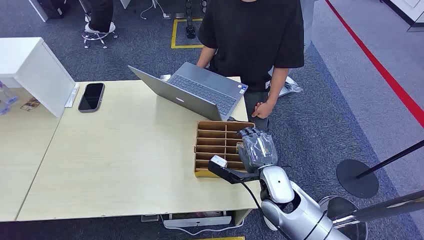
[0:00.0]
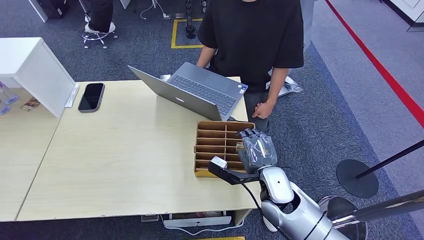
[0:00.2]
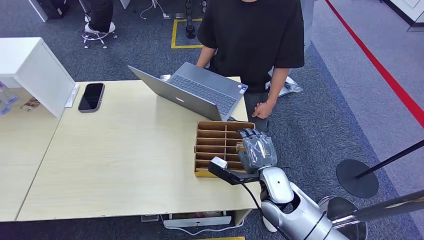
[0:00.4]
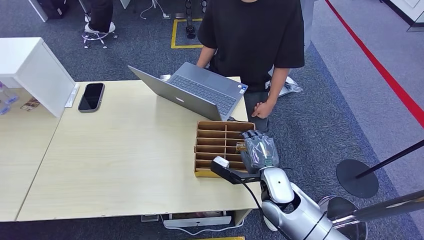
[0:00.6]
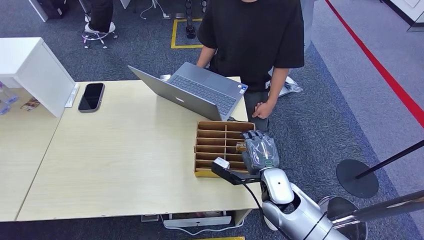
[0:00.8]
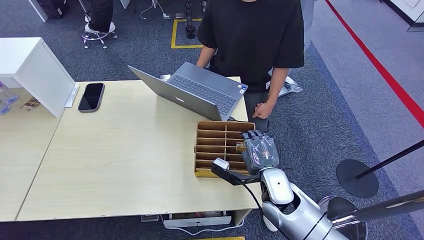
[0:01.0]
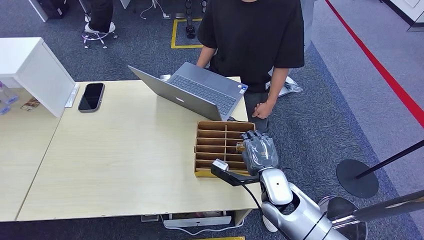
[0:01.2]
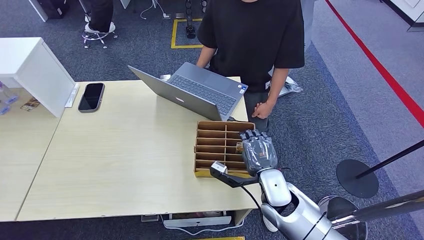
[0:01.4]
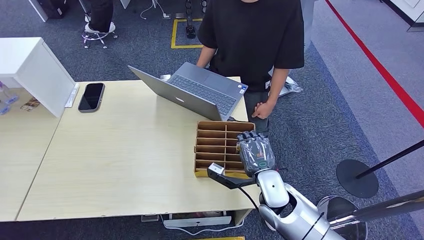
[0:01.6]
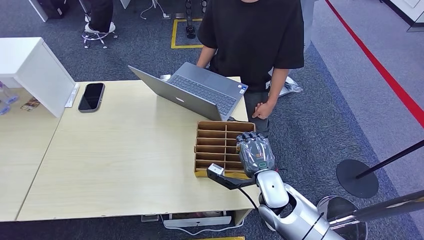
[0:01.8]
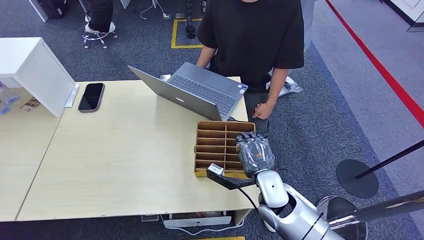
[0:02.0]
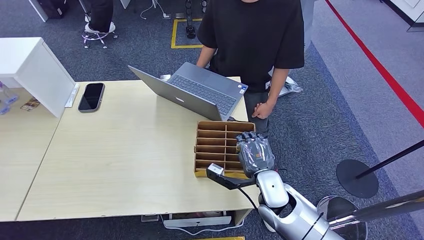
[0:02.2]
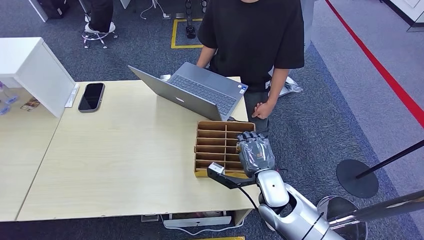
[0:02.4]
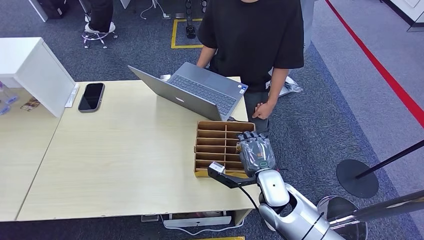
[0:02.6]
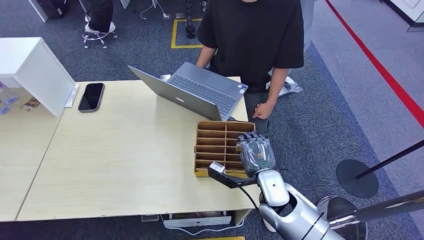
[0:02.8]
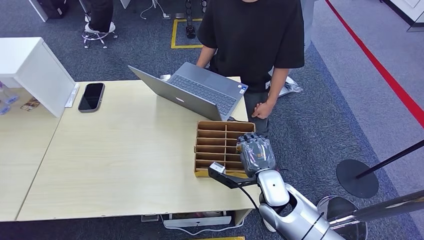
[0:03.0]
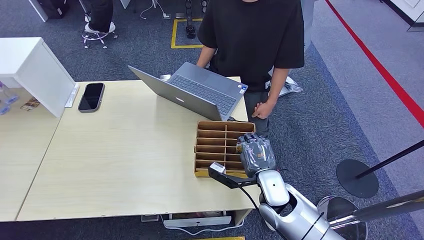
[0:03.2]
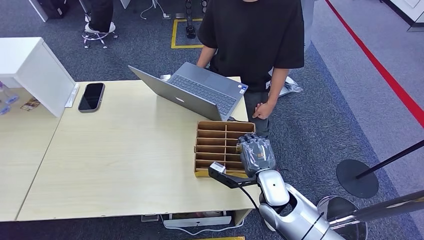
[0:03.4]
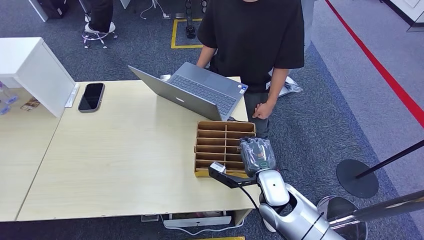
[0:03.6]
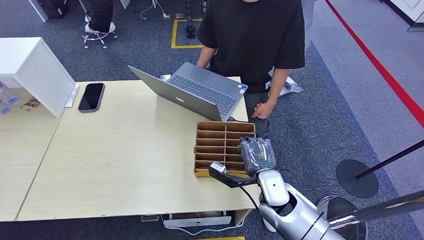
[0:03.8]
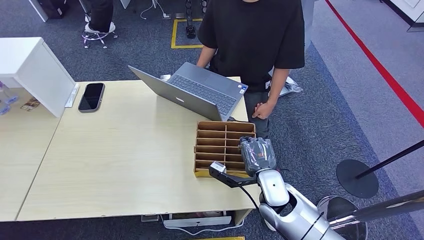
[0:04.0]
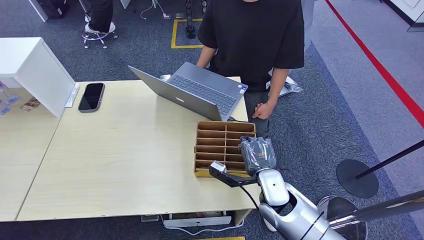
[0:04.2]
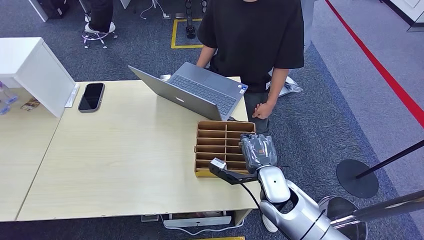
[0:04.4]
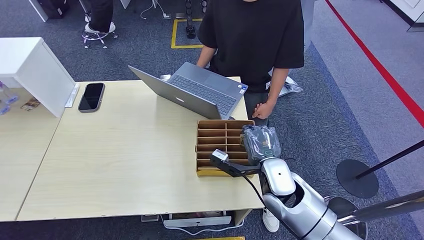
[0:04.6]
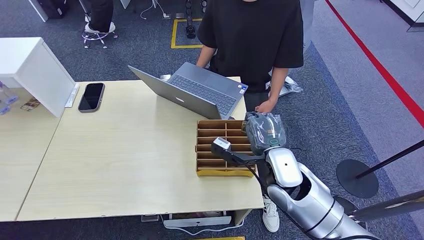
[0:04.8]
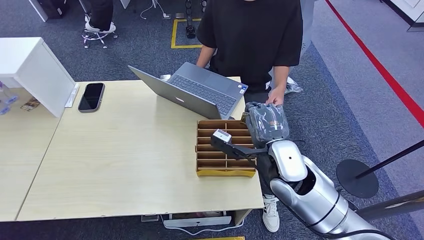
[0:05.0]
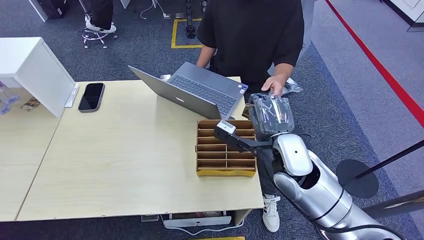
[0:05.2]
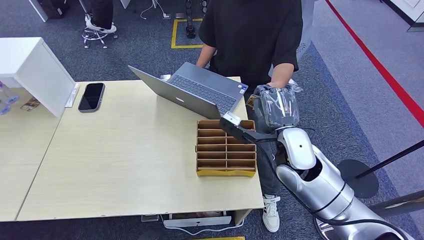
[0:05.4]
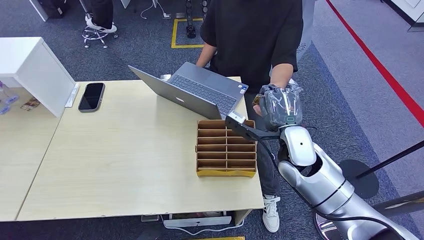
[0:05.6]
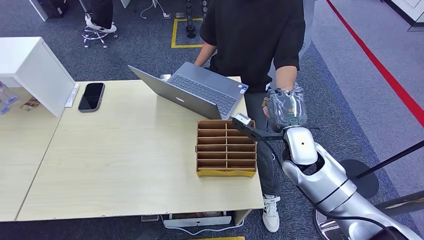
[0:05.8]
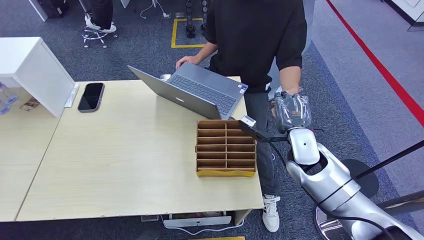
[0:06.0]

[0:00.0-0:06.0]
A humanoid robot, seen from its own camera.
Step, 0:00.0 to 0:04.8: Pick up the room card from the card holder.
Step, 0:05.0 to 0:06.0: Hand the room card to the target.
0:01.6 to 0:04.4: Both hands stay put.
0:04.4 to 0:06.0: The right hand is displaced to the right, forward and upward by roughly 10 cm.

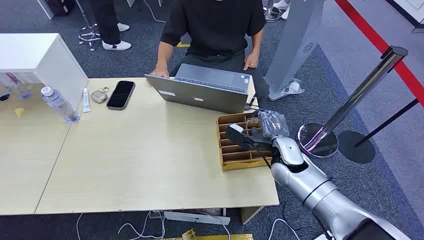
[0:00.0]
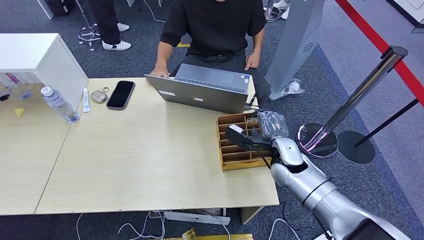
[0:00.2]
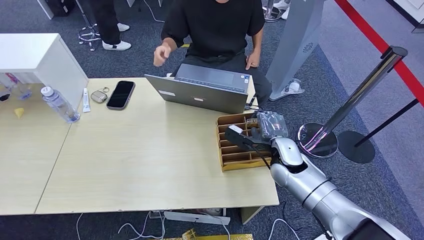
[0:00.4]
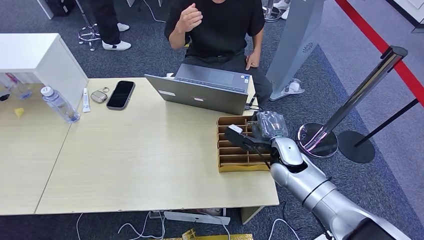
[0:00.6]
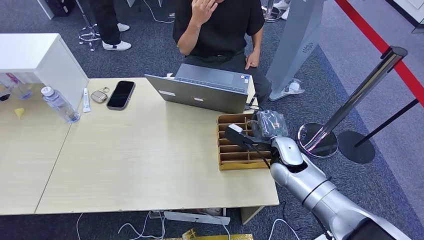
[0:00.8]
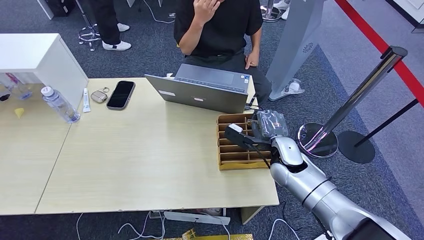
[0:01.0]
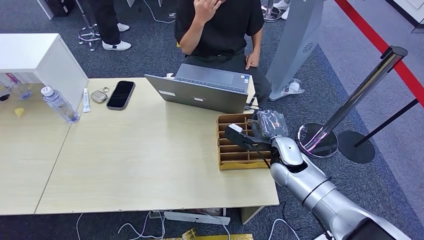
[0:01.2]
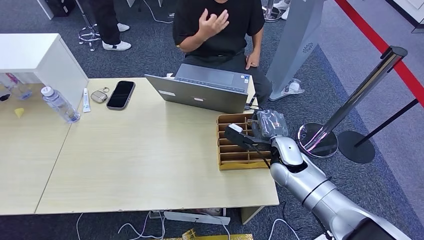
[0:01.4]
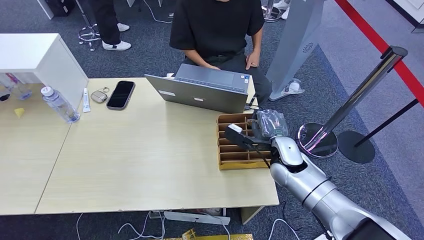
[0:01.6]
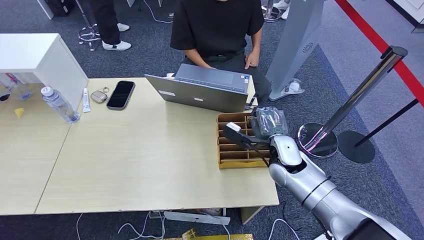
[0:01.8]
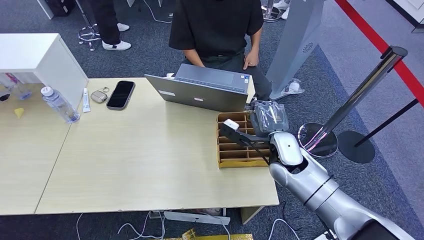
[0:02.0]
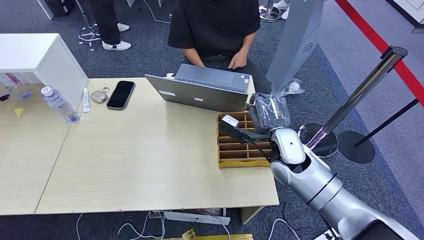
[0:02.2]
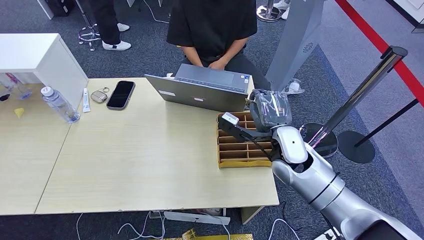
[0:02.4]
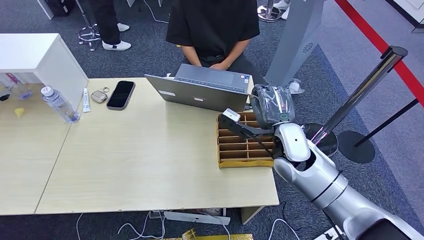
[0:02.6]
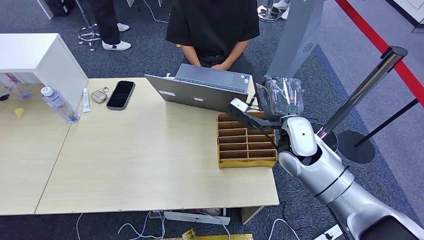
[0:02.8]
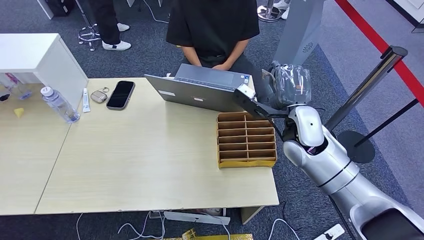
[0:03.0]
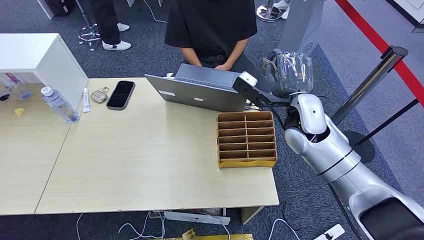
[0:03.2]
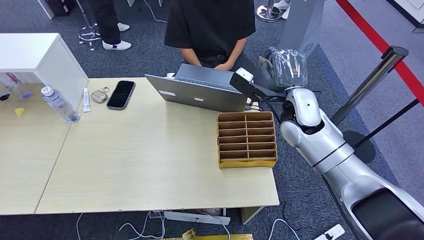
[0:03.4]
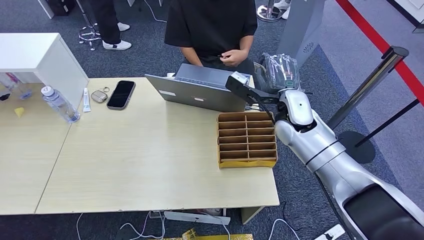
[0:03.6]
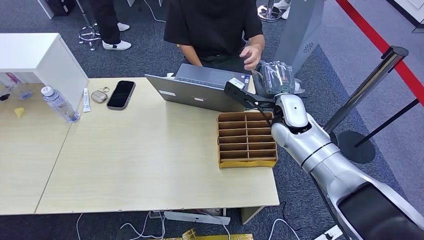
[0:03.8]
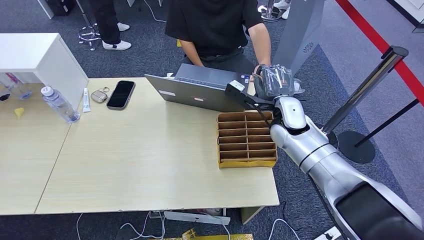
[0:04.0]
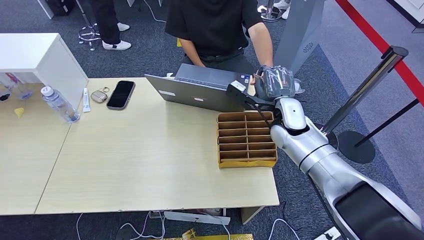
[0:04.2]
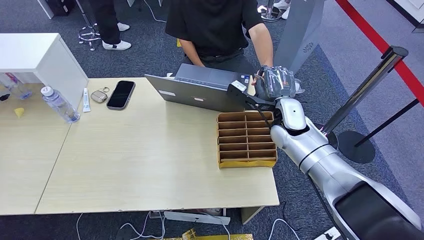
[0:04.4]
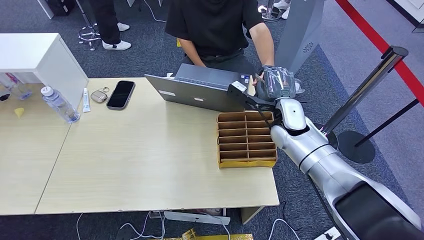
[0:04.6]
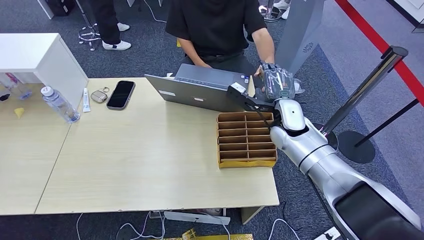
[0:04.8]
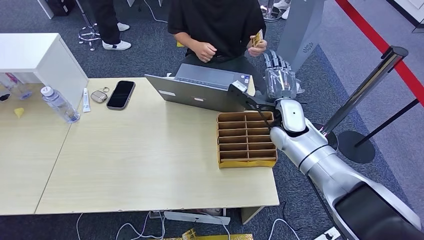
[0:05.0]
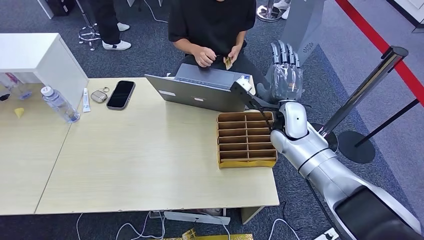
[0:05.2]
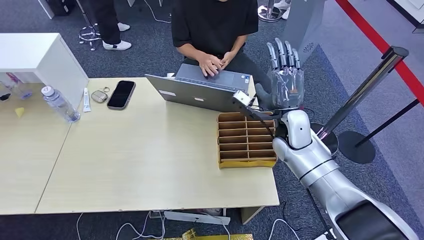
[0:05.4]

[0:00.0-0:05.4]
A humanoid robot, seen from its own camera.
Step, 0:00.0 to 0:03.0: Pick up the room card from the card holder.
Step, 0:03.2 to 0:05.2: Hand the room card to the target.
0:01.4 to 0:02.8: The right hand moves upward, about 10 cm.
0:02.8 to 0:04.0: The right hand moves forward, about 5 cm.
